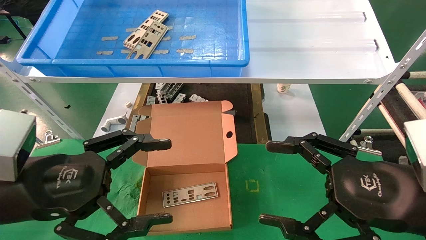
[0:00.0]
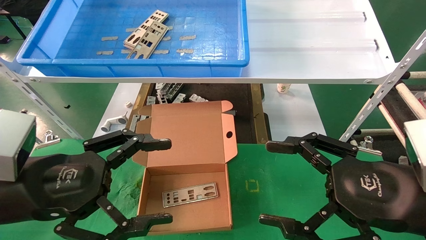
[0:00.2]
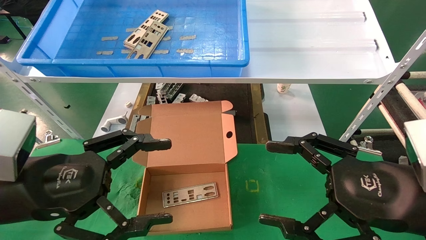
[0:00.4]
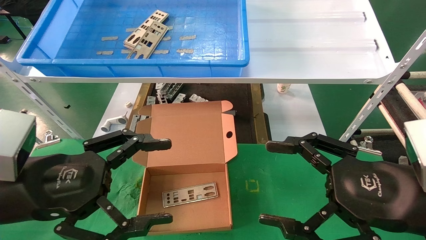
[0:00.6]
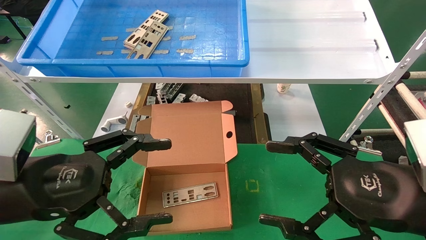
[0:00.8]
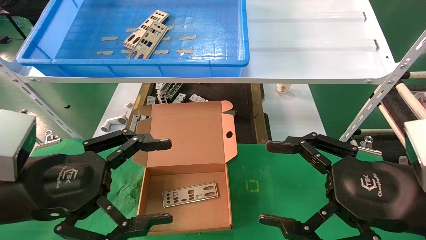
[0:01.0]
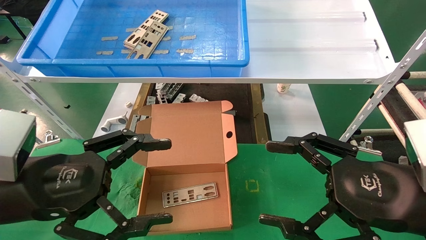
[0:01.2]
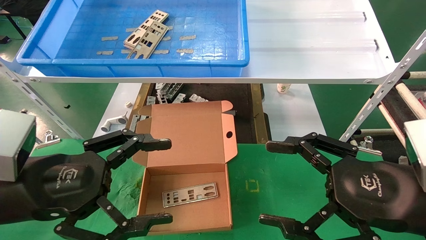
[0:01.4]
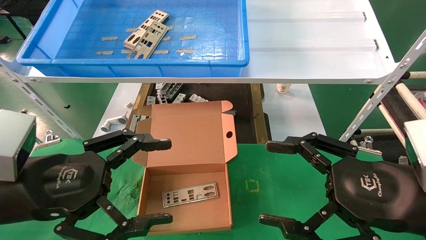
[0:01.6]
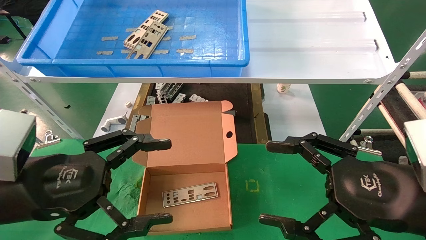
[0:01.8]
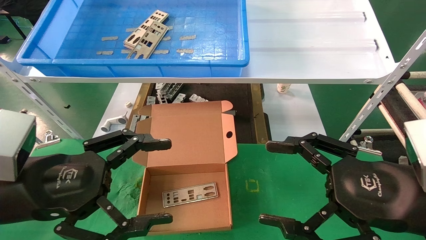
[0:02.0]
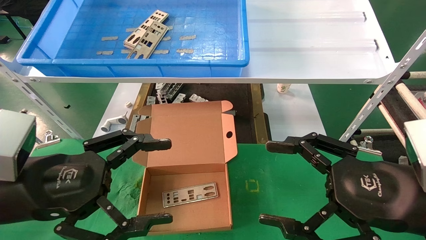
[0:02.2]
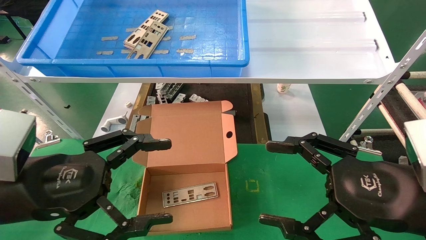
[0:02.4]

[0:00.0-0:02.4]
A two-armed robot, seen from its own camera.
Task of the whole recording: pick up the parts on the tray and put them in the cardboard box.
0:00.0 to 0:02.4: Both grippers stay put.

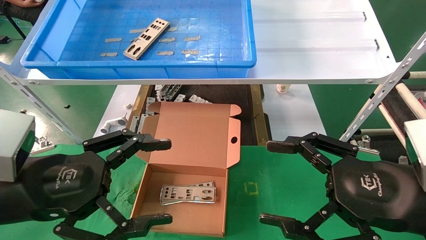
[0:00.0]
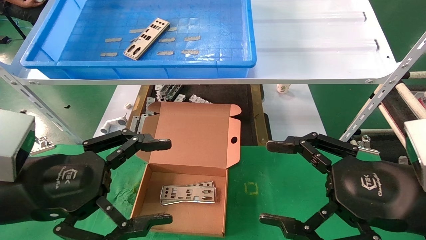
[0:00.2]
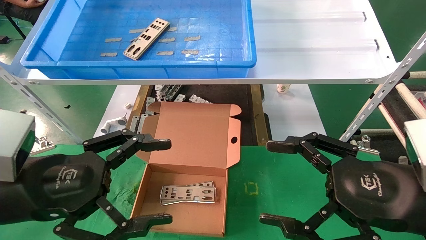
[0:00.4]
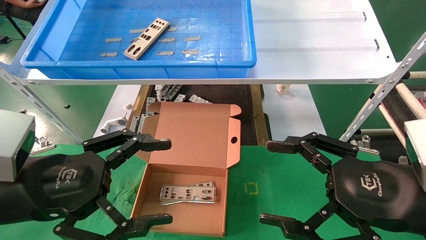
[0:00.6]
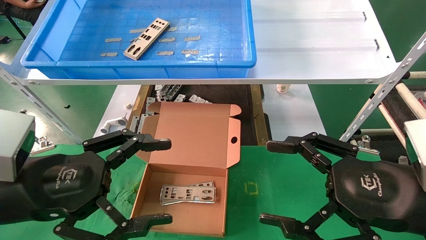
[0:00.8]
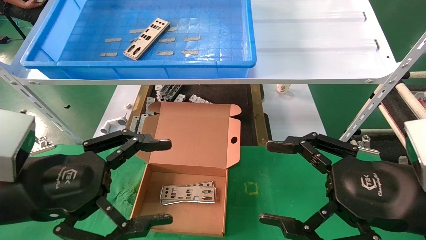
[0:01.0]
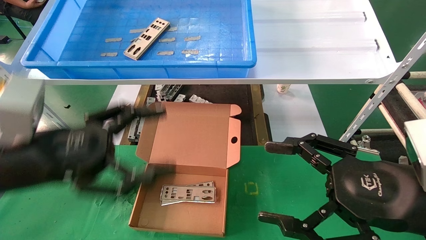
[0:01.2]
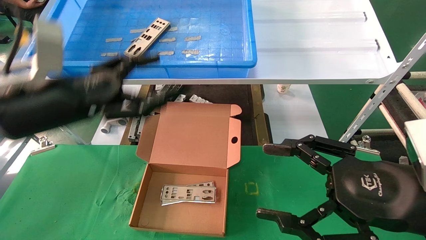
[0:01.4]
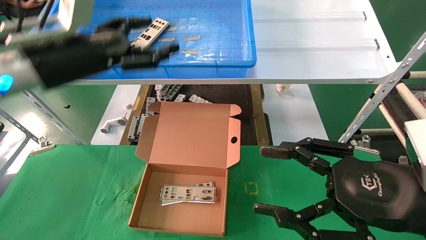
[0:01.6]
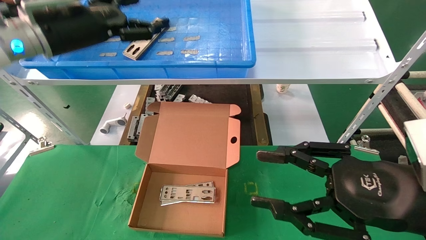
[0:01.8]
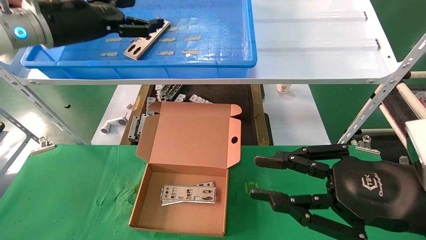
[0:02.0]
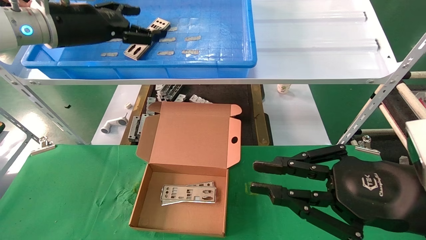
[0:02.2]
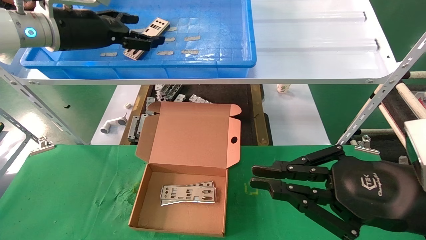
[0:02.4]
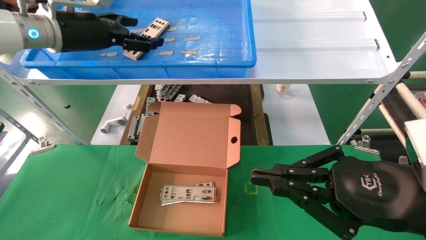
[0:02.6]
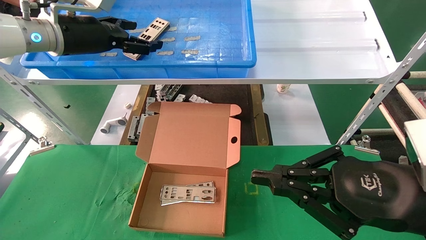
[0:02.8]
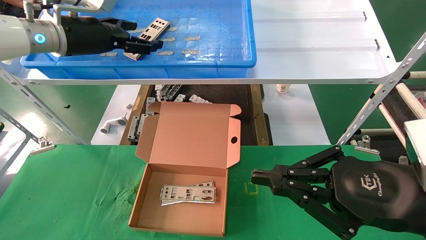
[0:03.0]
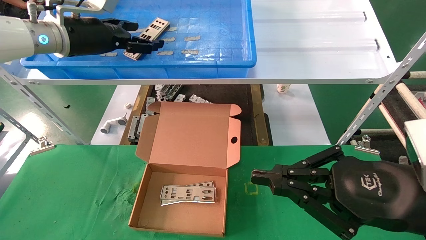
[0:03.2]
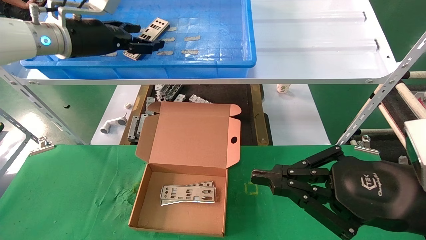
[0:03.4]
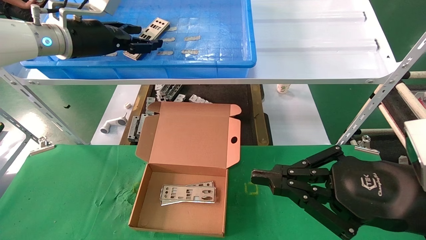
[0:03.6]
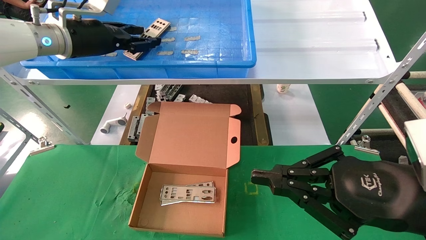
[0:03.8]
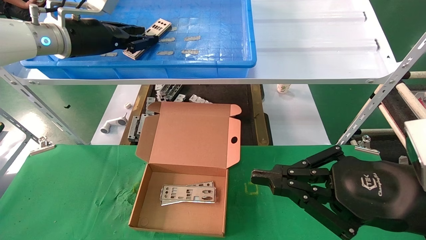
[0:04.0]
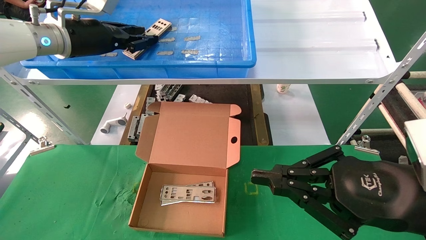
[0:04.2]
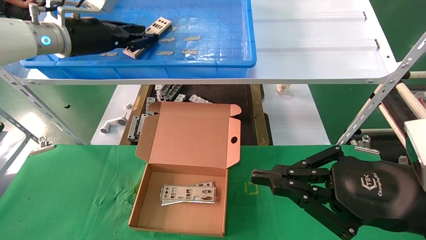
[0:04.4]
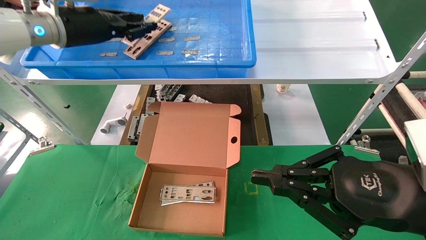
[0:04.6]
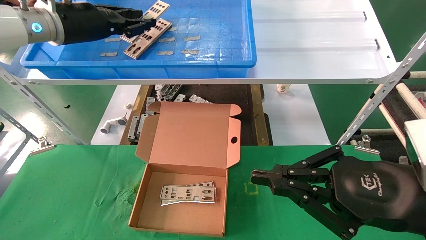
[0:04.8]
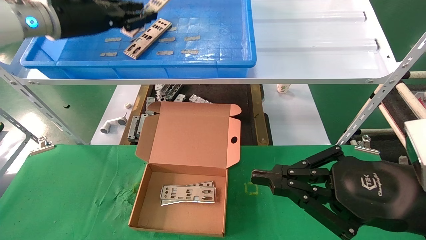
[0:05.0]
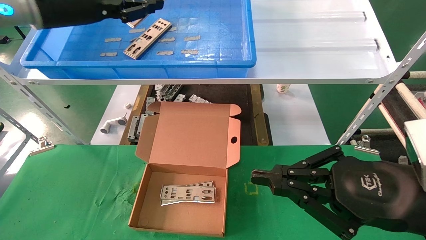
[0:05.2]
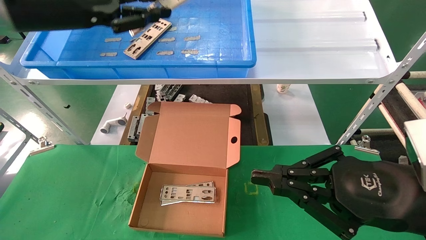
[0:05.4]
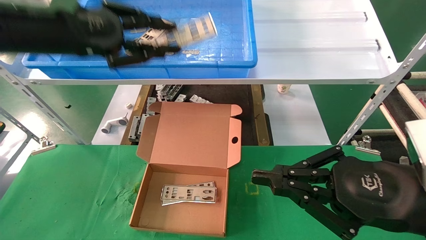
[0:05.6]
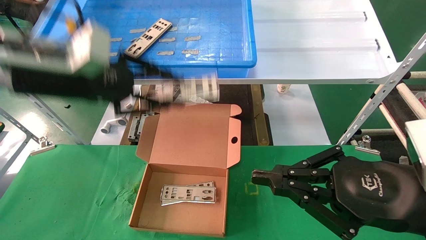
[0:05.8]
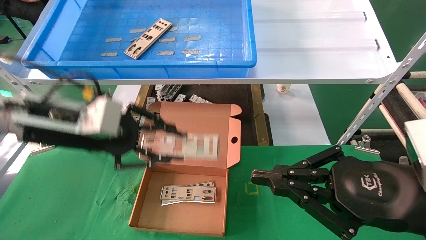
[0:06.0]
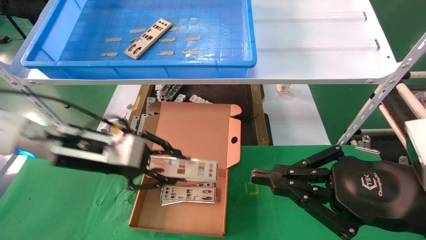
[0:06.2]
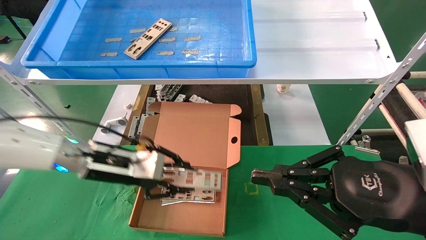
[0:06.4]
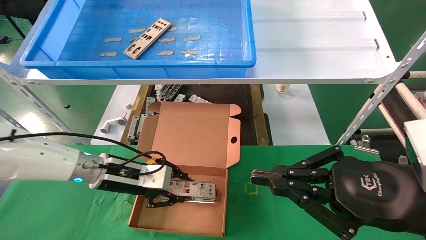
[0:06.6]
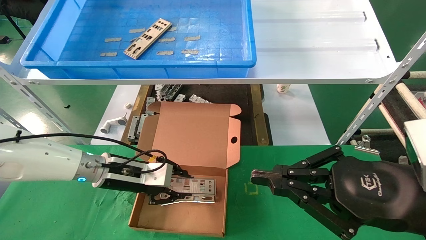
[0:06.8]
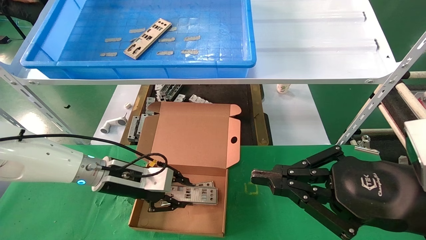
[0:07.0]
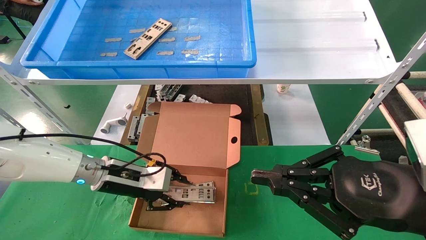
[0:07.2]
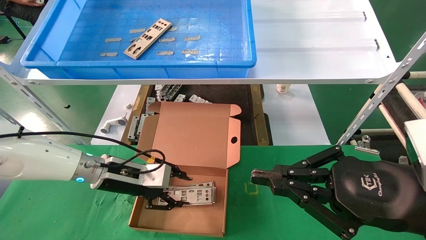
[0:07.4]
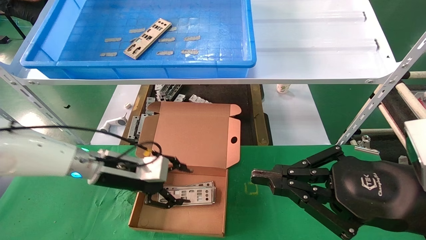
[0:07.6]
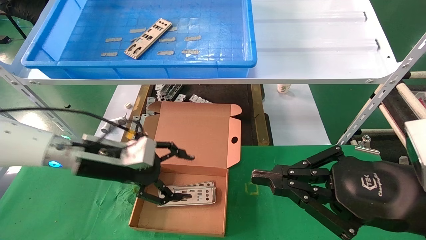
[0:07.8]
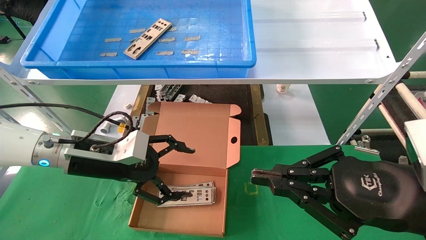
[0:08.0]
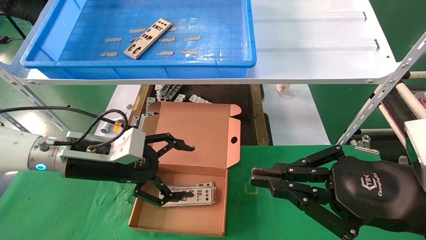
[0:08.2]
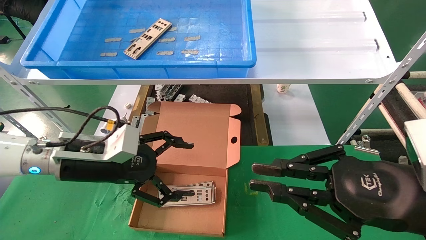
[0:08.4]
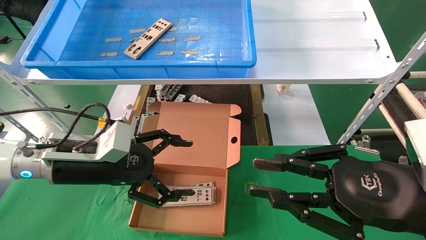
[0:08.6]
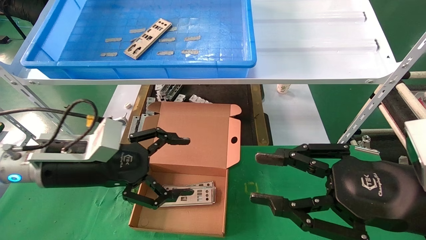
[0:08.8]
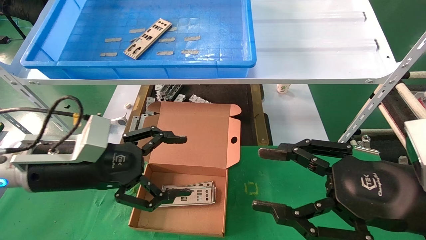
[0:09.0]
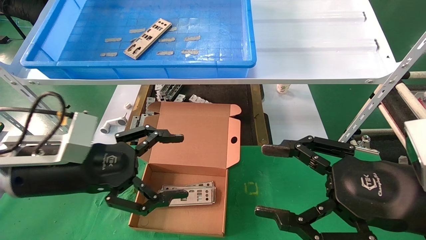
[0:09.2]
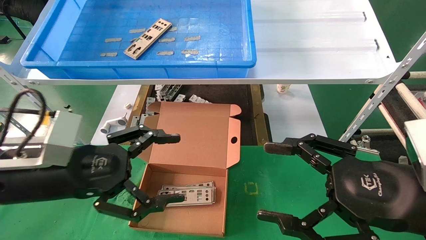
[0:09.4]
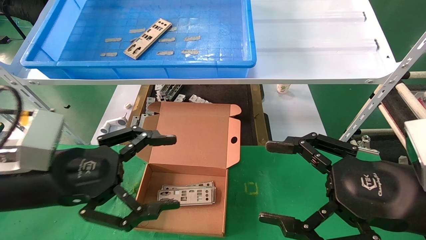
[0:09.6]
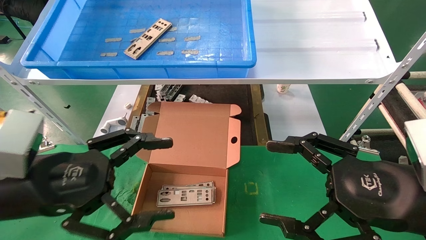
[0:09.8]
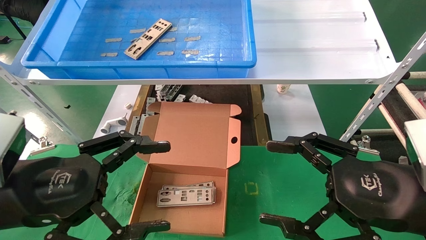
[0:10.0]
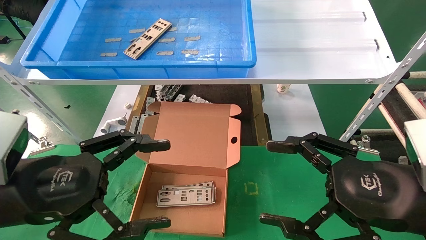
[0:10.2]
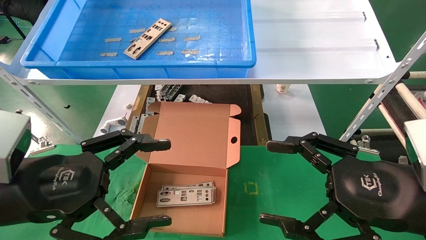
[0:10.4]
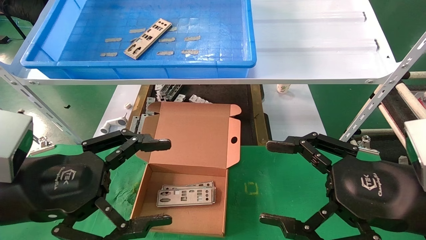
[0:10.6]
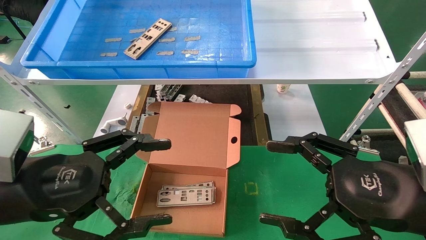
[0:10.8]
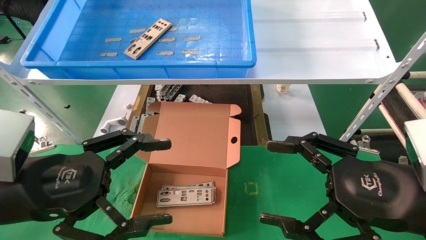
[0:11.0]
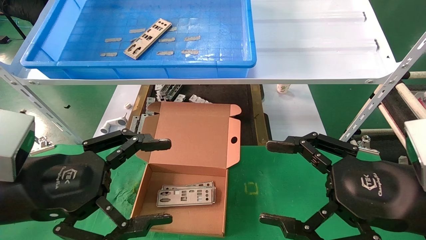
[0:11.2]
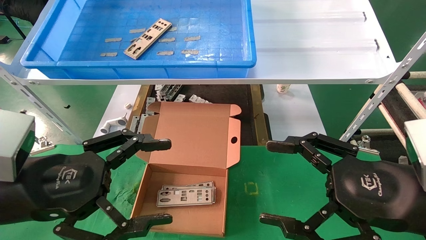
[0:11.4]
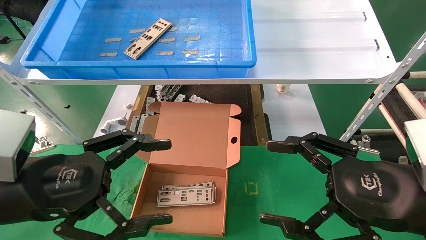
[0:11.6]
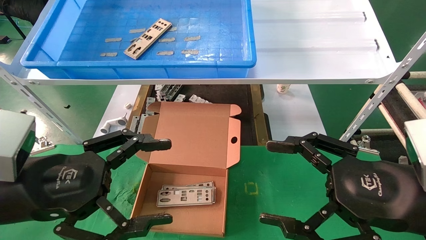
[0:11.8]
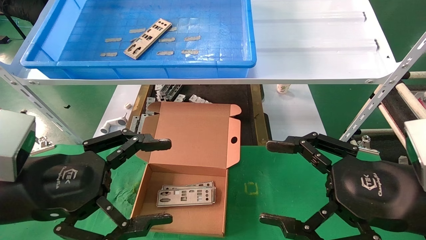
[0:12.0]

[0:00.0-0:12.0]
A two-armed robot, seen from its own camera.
Task of the whole recording: pick up the parts on the tray and put them in the cardboard box.
Step, 0:01.4 to 0:04.6: Pick up the IO bracket from the container box.
Step, 0:04.8 to 0:07.4: Place the IO bracket into the ingredient slot.
0:00.0 to 0:01.6: The left gripper goes roughly 20 cm forward and upward.
0:01.6 to 0:03.0: The left gripper moves forward and upward, approximately 10 cm. Meanwhile the right gripper closes.
0:03.0 to 0:04.4: The left gripper closes its fingers.
0:04.4 to 0:06.0: The left gripper travels downward and backward by roughly 15 cm.
0:06.0 to 0:07.6: The left gripper is displaced downward and forward by roughly 15 cm, and opens its fingers.
0:07.6 to 0:09.0: The left gripper travels backward by some 10 cm, and opens up. The right gripper opens up.
0:09.0 to 0:10.4: The left gripper moves backward, roughly 10 cm. Meanwhile the right gripper opens up.
0:10.4 to 0:12.0: Neither gripper changes place.

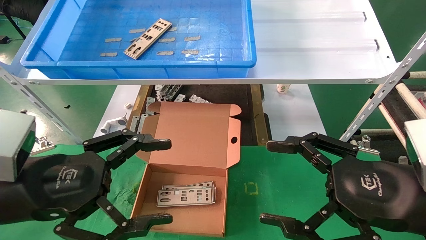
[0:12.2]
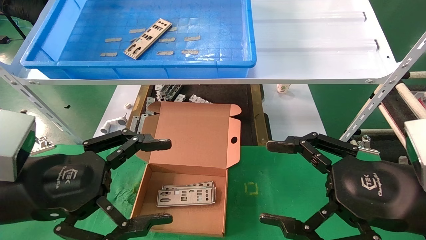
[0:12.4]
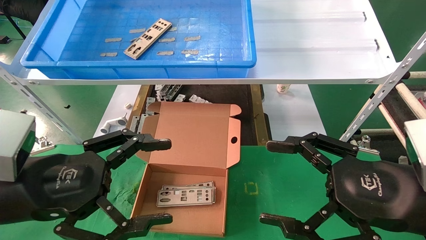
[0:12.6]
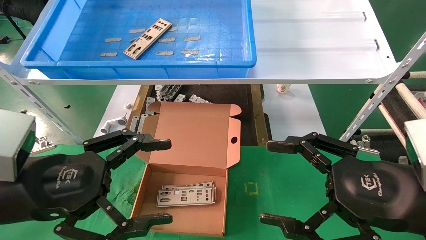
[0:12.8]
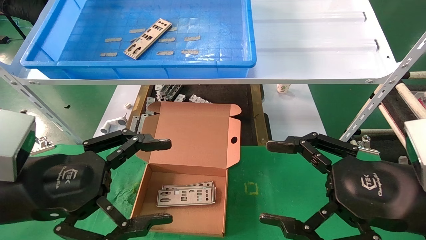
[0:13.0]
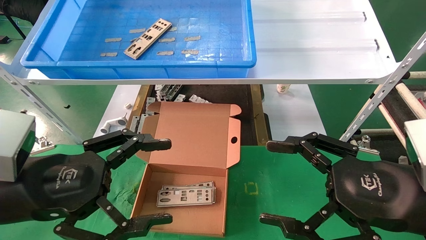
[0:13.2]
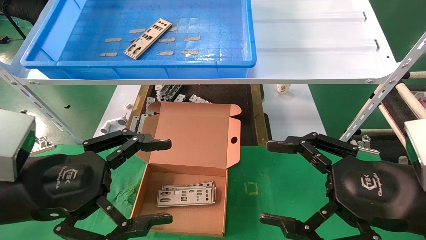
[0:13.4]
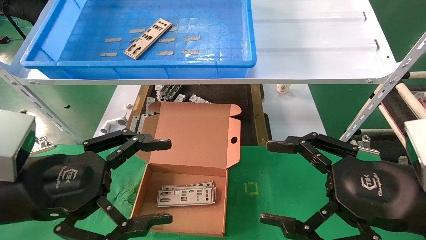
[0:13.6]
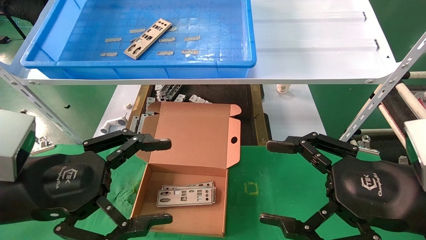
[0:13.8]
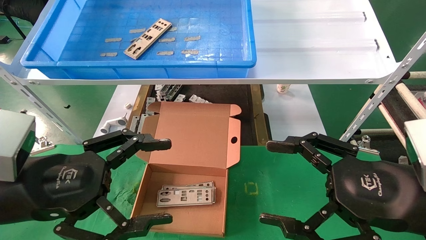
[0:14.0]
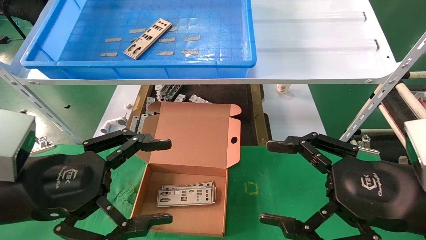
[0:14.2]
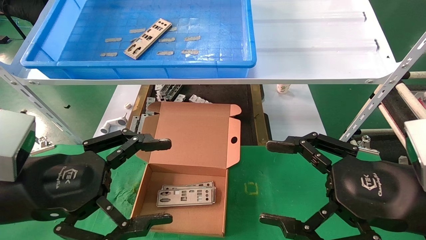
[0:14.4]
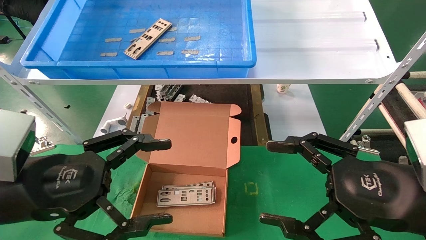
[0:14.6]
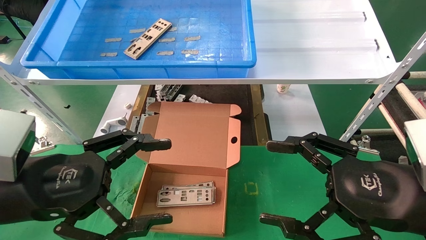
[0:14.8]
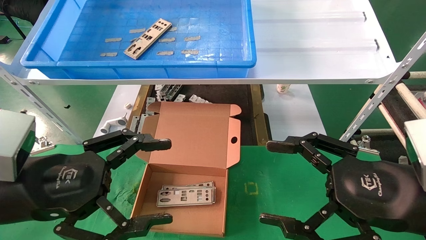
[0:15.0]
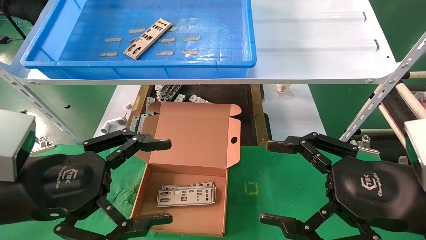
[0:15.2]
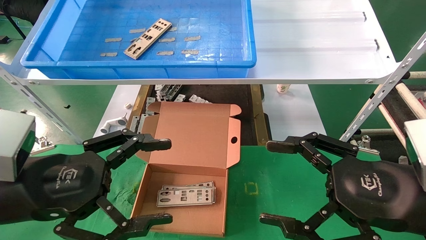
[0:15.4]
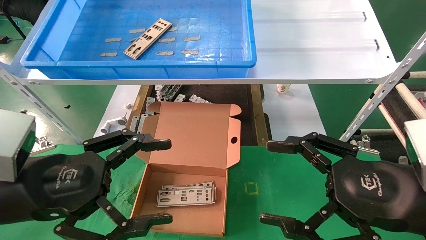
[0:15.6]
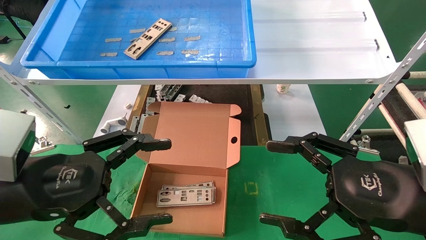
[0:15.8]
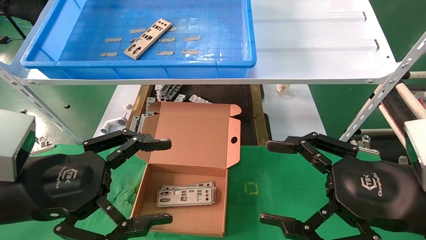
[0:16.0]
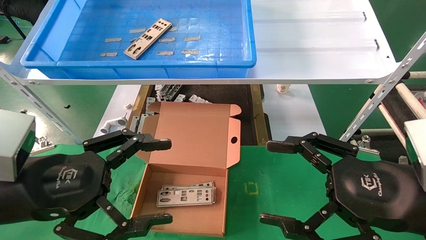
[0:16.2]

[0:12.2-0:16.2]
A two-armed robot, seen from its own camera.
Task of the whole recording: pick up the parts on the tray and put them in the cardboard box.
0:12.2 to 0:16.2: The two grippers keep their place.
